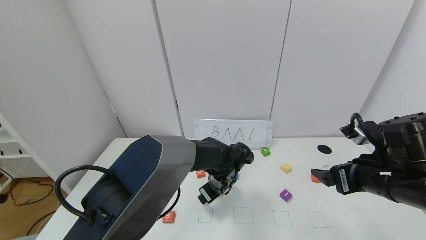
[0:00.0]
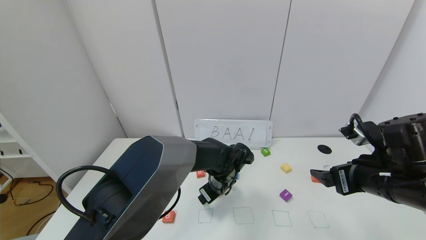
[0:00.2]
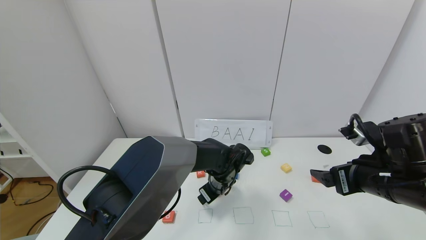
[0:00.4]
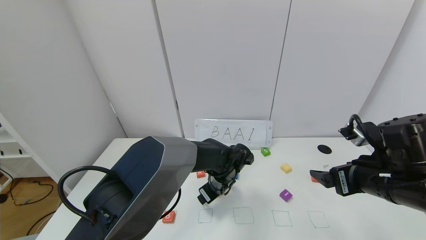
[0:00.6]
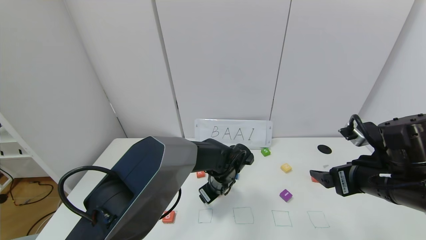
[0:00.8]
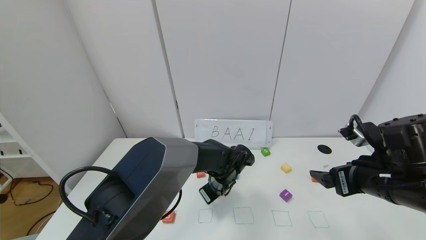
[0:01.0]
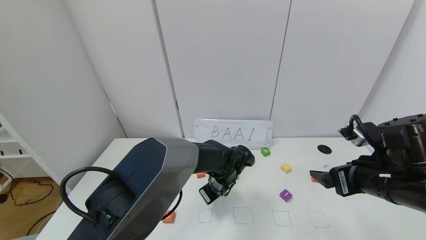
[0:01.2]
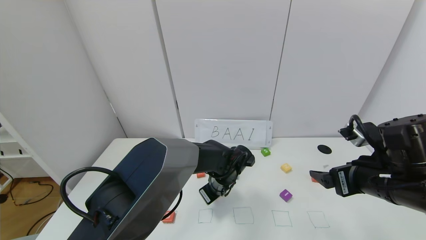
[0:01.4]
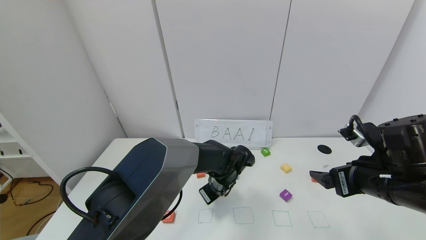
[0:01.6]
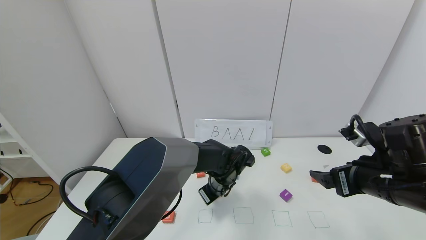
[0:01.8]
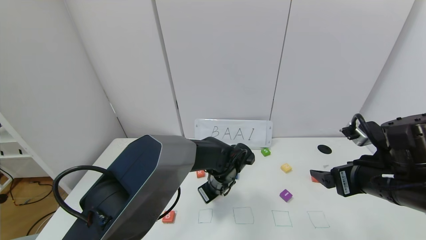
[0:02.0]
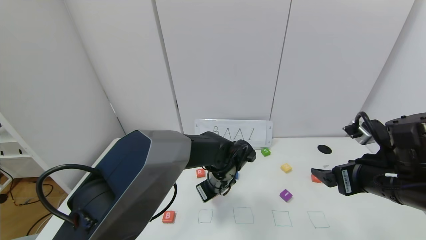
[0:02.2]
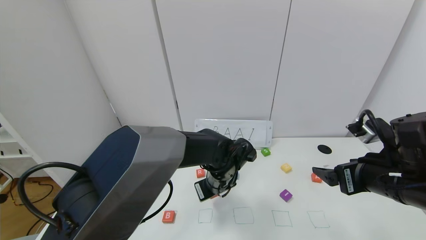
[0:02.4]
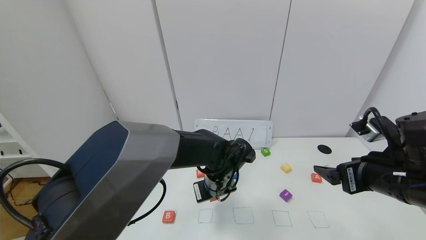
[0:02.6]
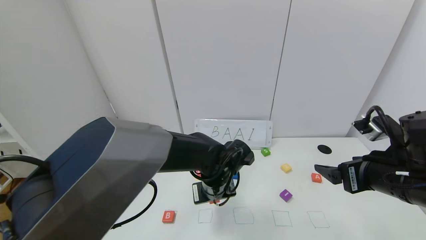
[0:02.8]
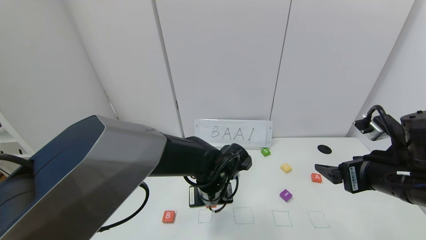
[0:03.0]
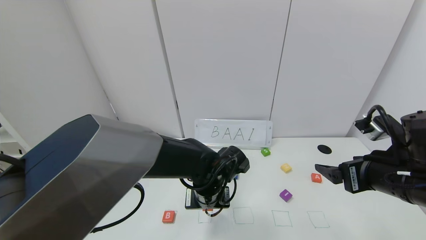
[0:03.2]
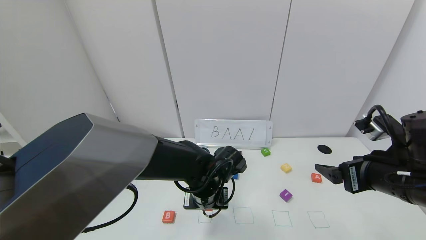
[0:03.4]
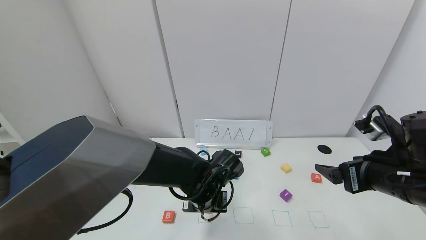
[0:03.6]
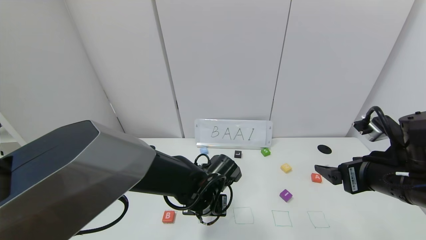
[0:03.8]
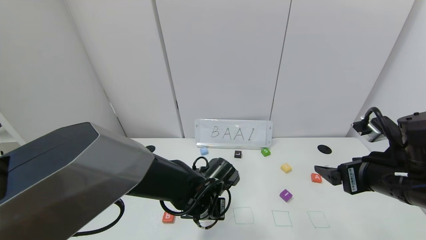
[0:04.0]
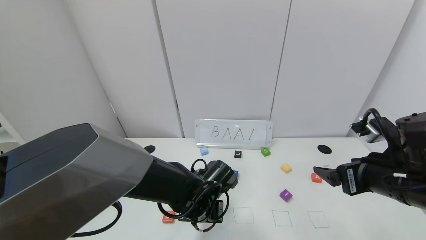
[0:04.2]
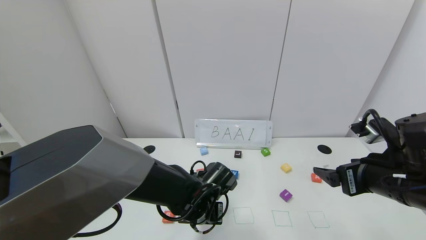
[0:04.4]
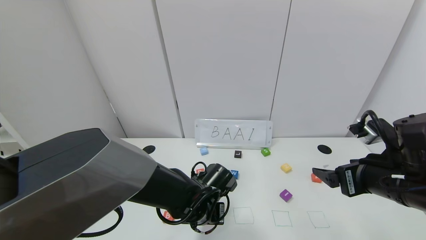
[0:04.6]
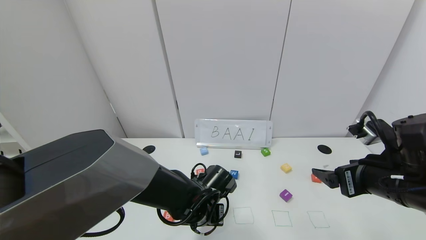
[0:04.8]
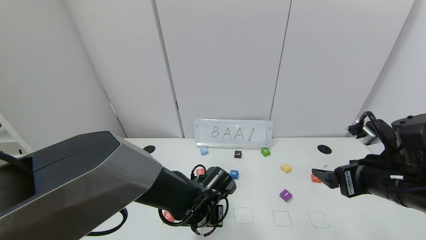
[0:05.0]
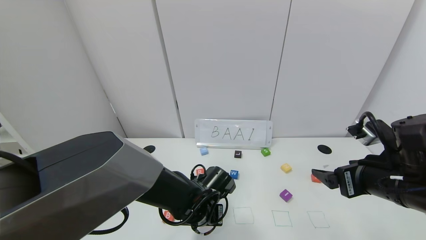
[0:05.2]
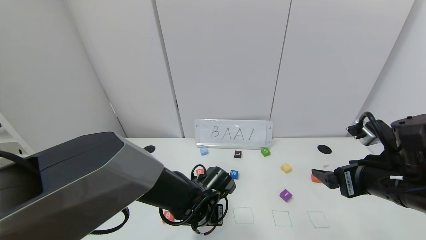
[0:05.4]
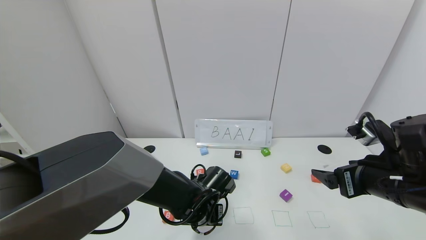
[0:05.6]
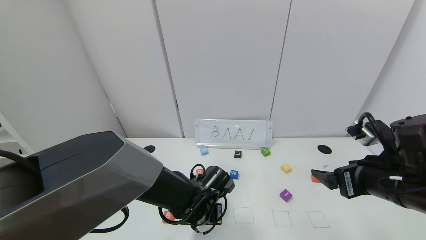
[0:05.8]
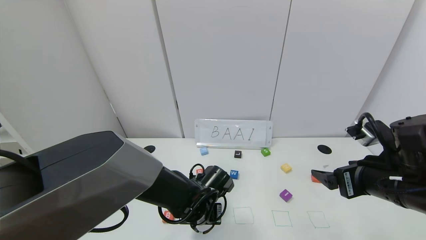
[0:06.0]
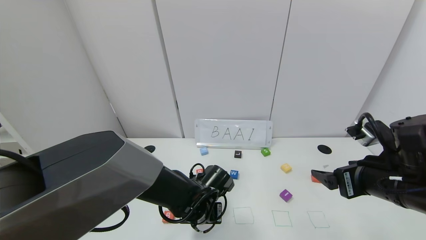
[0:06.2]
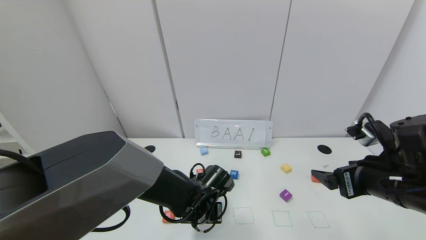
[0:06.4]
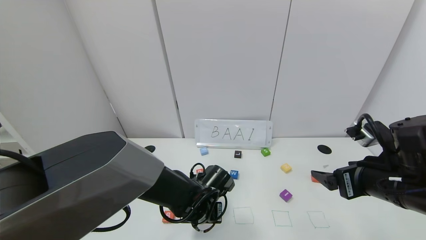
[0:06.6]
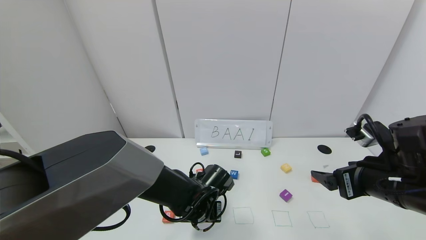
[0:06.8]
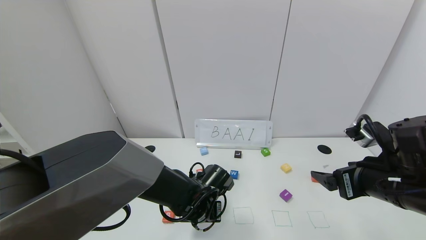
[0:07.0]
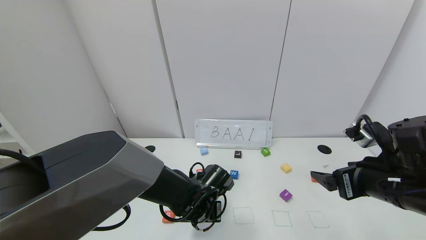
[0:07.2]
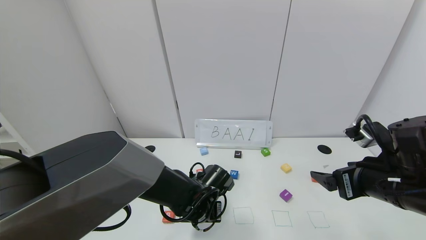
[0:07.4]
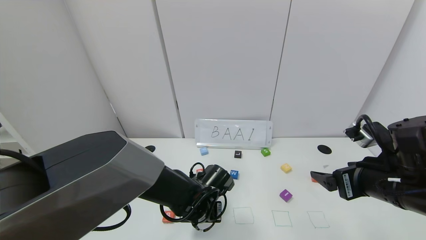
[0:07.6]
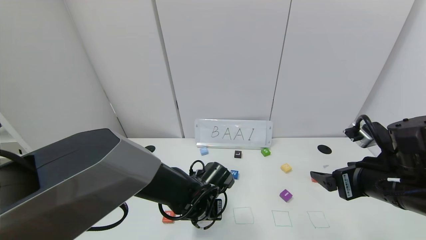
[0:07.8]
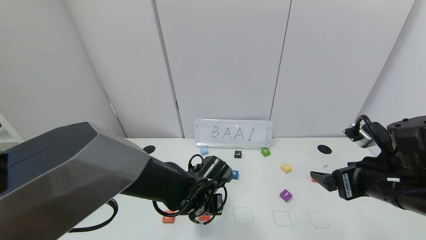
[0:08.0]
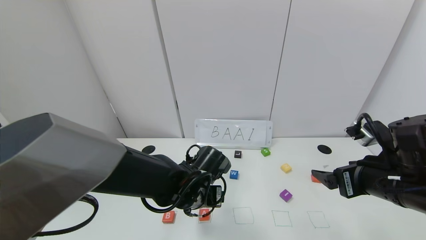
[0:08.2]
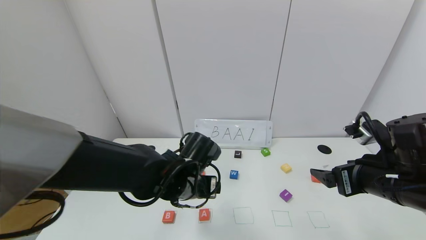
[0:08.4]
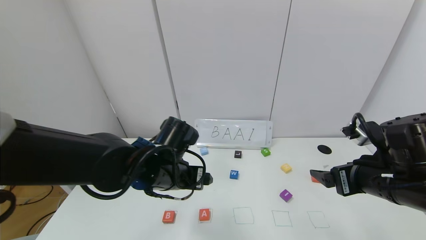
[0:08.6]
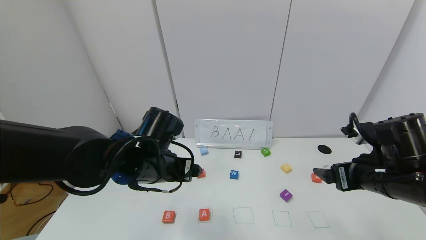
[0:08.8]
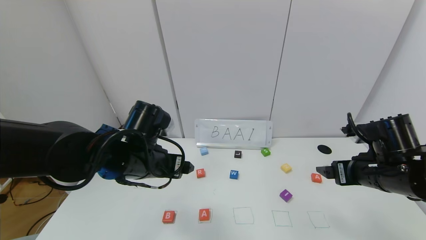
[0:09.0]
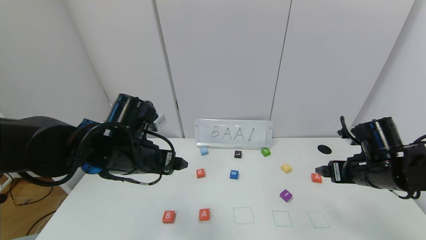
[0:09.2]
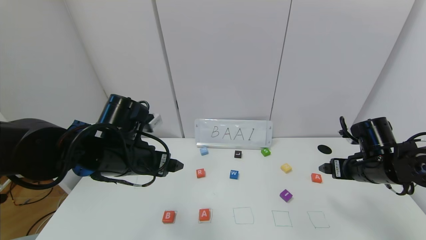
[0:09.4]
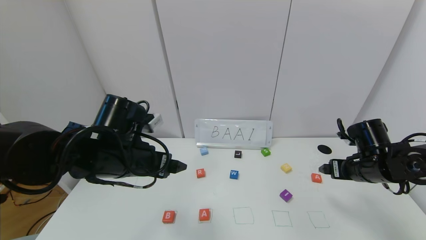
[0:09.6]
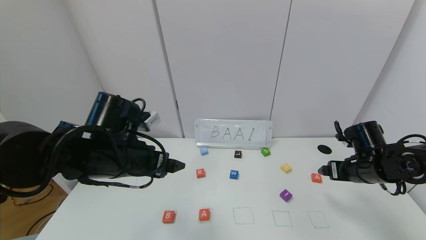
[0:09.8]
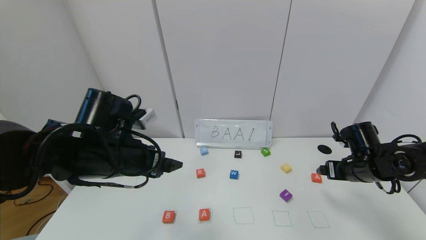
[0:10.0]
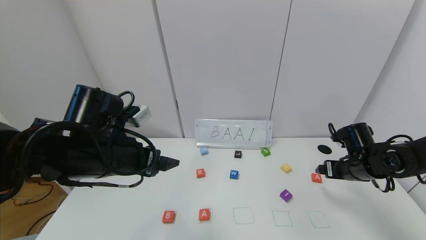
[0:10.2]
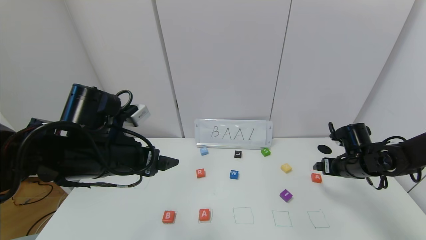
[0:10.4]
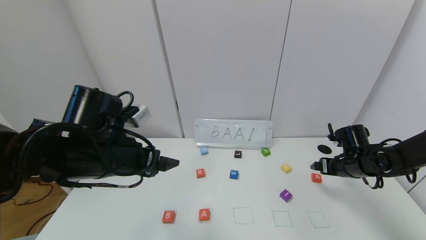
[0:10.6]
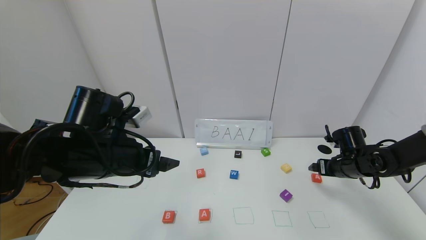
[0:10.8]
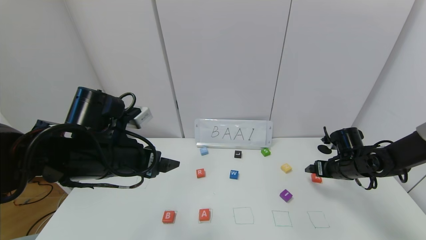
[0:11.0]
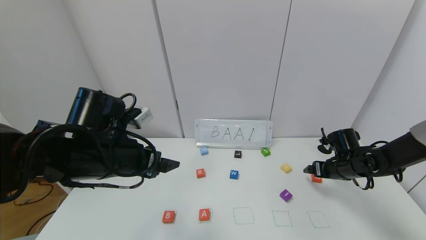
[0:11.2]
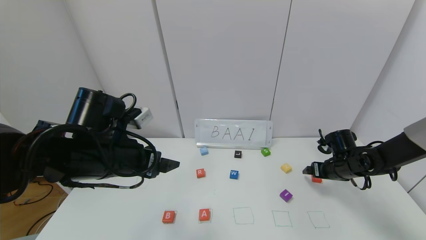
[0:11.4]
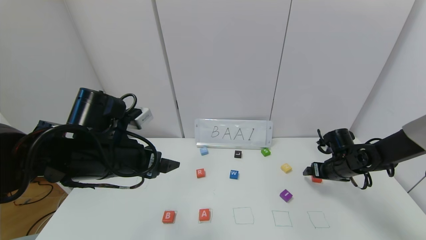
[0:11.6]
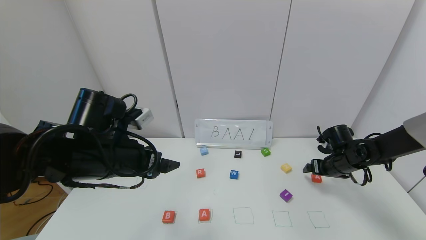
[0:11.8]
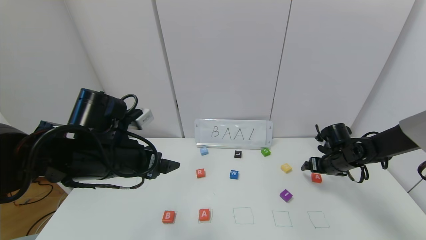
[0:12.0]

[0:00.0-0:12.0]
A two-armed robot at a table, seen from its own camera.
Task of the whole recording: use the gripper to find blocks with the letters b, a, a, and i on the table and arrange them into BAAI, then find r and N and turn the arranged baai into brian.
Step, 0:00.0 to 0:07.8: Place the first block A in the second location.
0:00.0 to 0:01.6: The left gripper closes its fingers.
0:01.6 to 0:03.0: The left gripper moves backward and upward, about 10 cm.
0:03.0 to 0:04.4: The left gripper changes place by some 5 cm.
0:04.4 to 0:06.0: The grippers make only small movements.
0:06.0 to 0:07.6: The left gripper opens up.
0:07.6 to 0:09.0: The right gripper shifts approximately 5 cm forward, while the left gripper travels upward and to the left by some 20 cm, and opens.
0:09.0 to 0:10.4: The left gripper changes place by approximately 5 cm. The right gripper travels forward and downward by roughly 15 cm.
0:10.4 to 0:12.0: The right gripper moves about 5 cm.

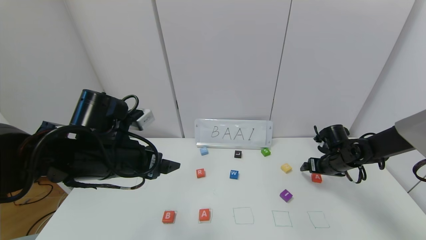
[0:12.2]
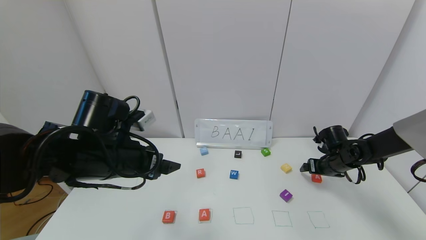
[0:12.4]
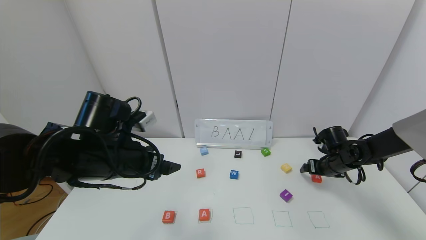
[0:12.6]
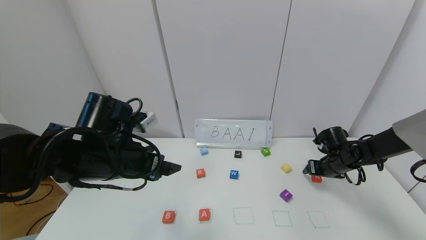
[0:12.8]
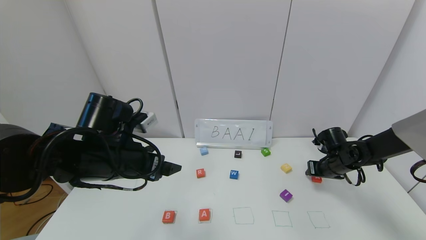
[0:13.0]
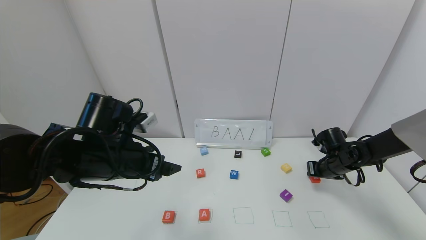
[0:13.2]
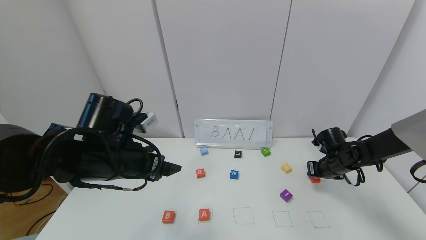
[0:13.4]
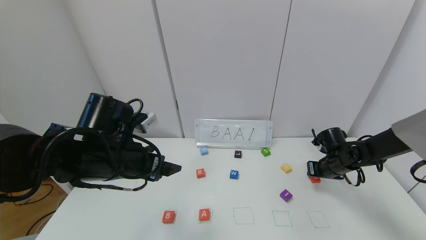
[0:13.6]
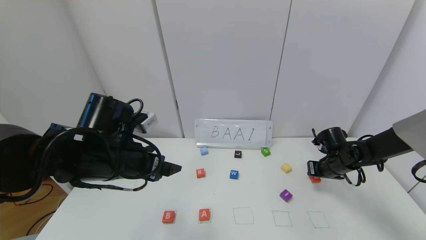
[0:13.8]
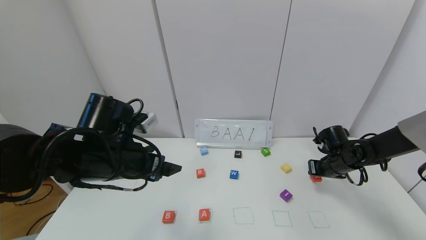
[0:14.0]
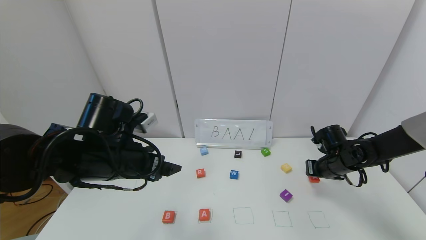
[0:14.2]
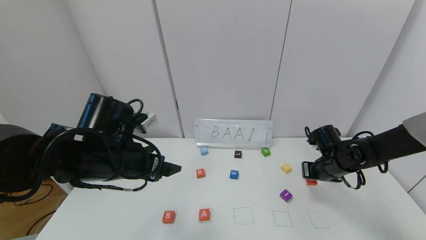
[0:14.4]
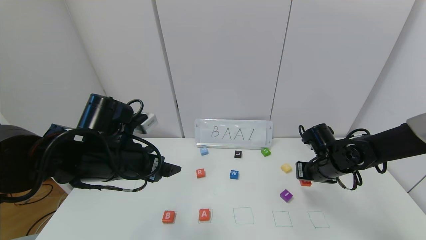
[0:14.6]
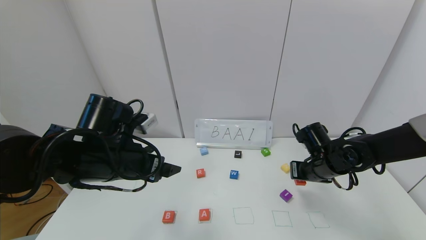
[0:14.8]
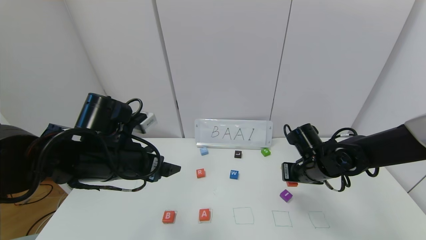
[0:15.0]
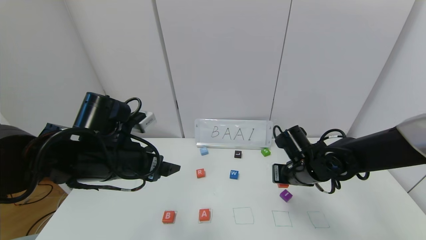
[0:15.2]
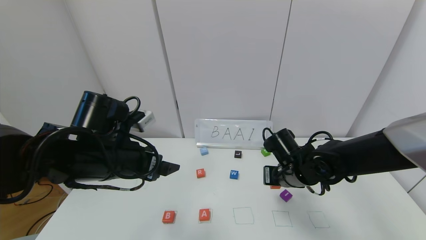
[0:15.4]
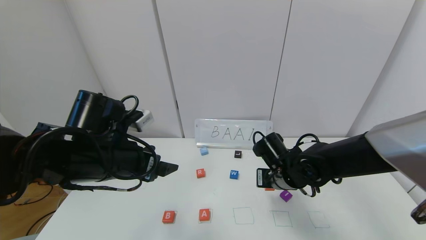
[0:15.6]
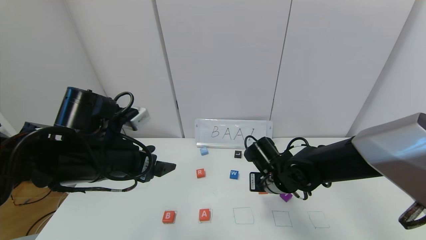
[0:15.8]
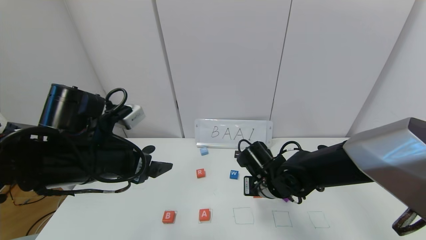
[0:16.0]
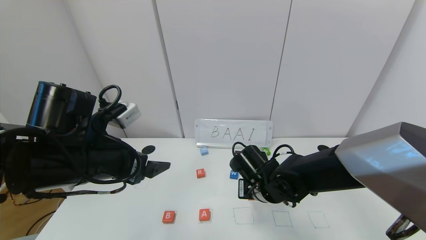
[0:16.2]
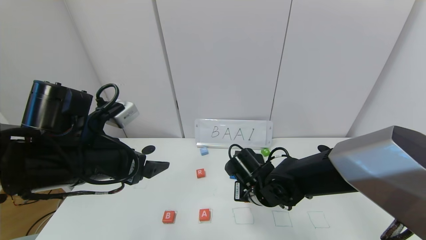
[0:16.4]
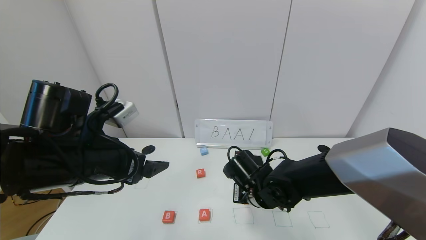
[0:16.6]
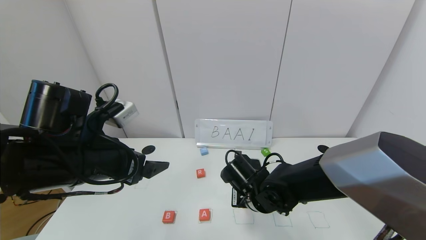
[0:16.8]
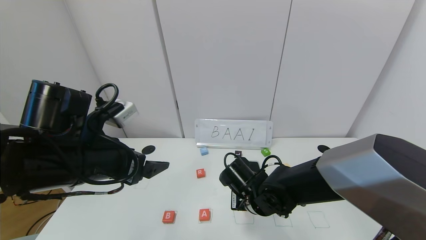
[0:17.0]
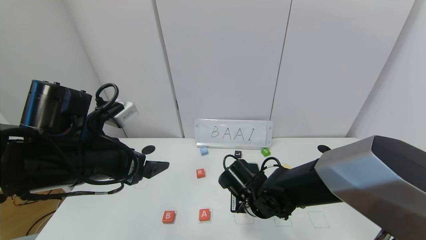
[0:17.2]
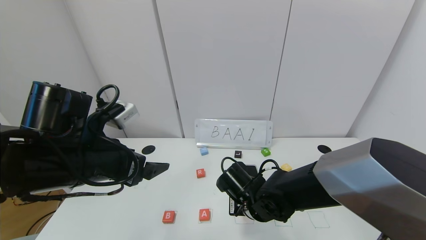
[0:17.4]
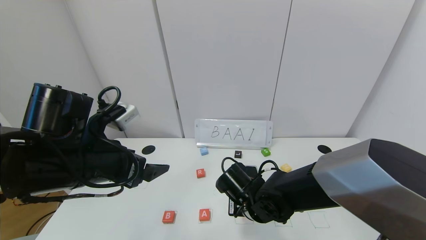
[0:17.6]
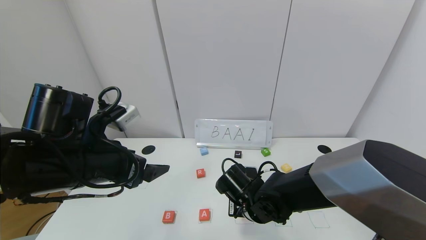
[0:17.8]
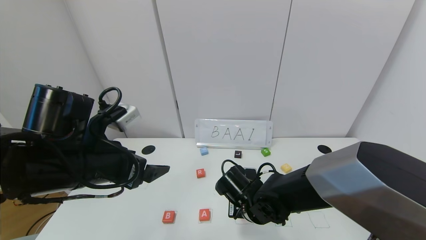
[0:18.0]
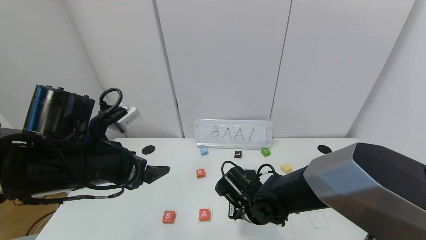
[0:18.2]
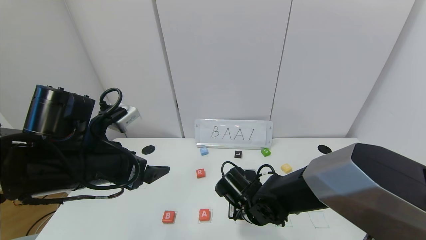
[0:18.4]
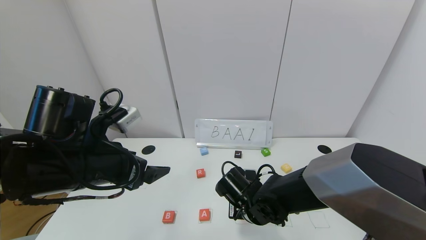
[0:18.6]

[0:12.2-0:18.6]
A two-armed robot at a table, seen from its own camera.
Task of the whole recording: use the gripper to find blocks with the letters b, a, a, and i on the table and arrange them into BAAI, then find r and N and turn the arranged baai into brian.
0:12.2 to 0:13.8: The right gripper closes its fingers.
0:13.8 to 0:15.4: The right gripper shifts roughly 20 cm to the left and backward.
0:15.4 to 0:17.0: The right gripper heads to the left, covering approximately 10 cm.
0:17.0 to 0:18.6: The grippers make only small movements.
